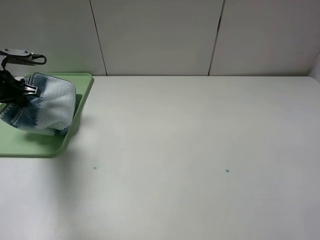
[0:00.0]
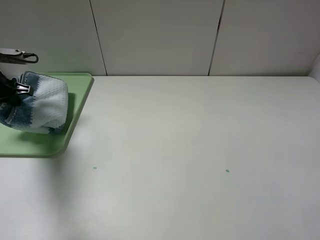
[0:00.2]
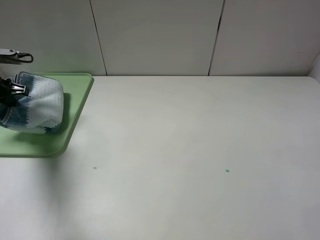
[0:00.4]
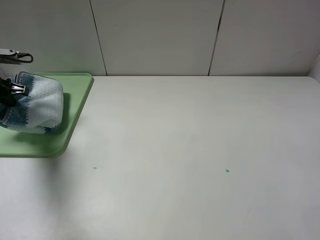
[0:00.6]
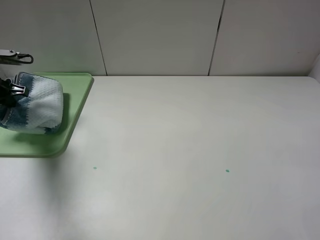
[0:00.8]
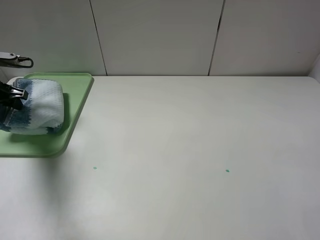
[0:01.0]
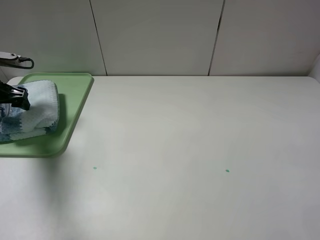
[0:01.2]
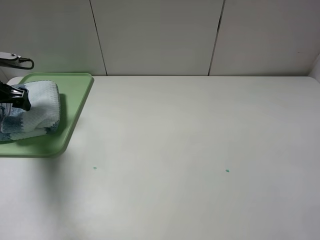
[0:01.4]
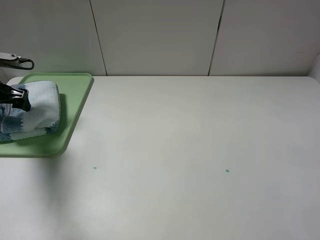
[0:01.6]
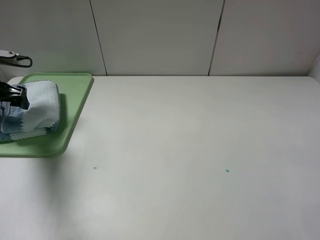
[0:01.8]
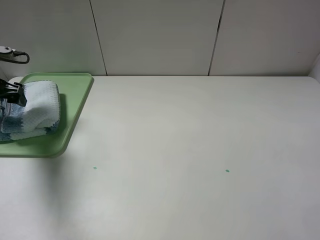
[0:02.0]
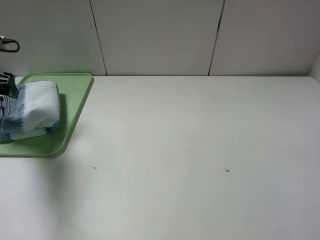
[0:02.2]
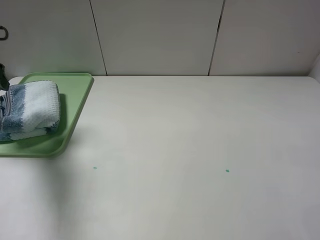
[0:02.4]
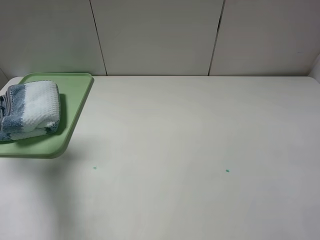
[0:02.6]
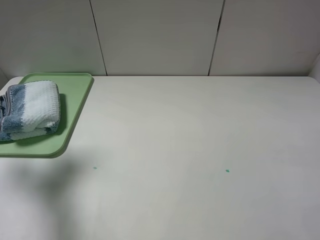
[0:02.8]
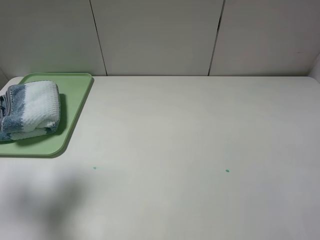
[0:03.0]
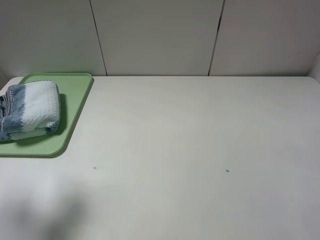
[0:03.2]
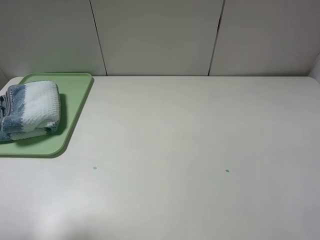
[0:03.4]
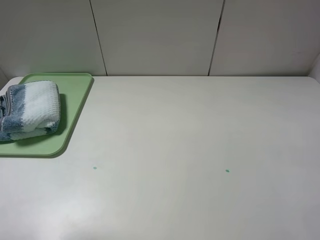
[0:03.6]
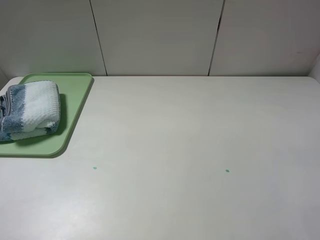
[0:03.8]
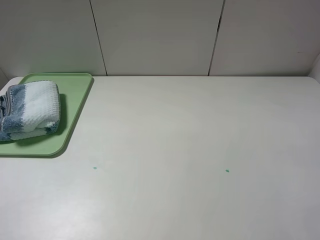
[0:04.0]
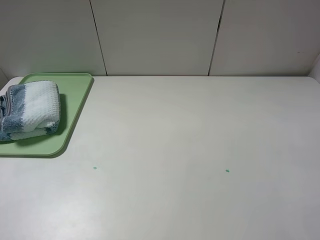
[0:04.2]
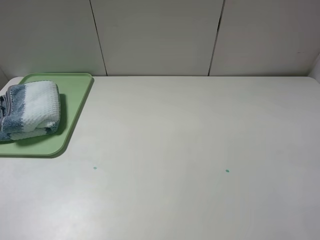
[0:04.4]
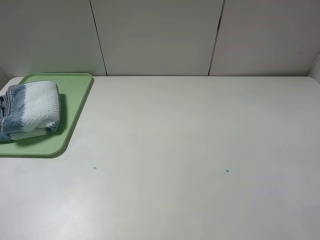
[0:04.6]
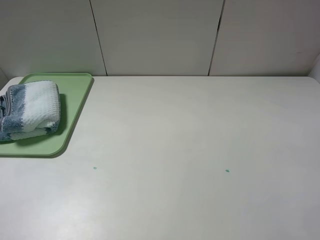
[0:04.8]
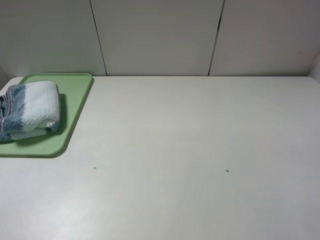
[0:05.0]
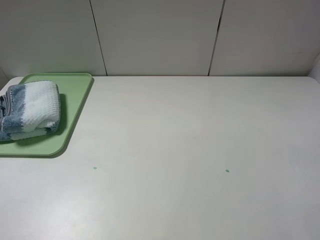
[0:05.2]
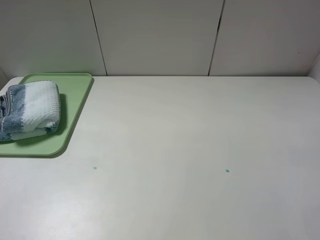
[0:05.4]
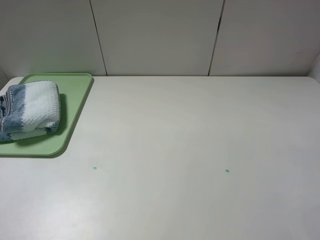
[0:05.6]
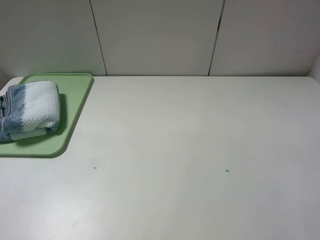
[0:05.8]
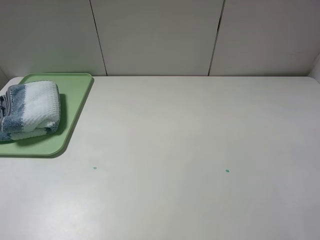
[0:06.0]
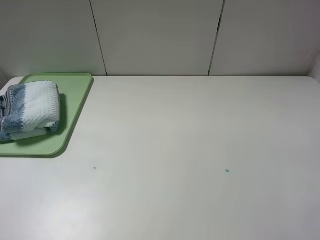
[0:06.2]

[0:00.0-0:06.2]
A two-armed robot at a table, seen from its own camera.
0:00.0 to 0:01.6: The left gripper opens.
0:01.6 to 0:03.2: The left gripper goes roughly 25 cm backward and upward.
0:03.2 to 0:04.6: The left gripper goes approximately 15 cm backward.
